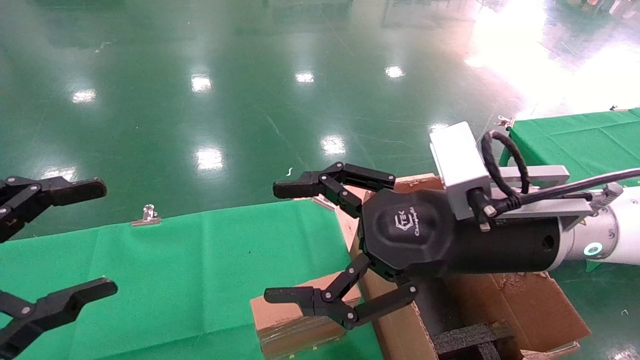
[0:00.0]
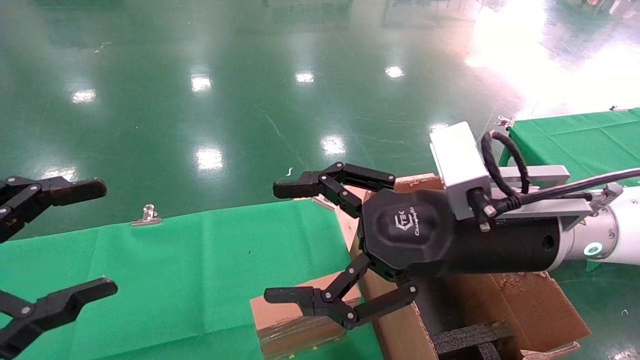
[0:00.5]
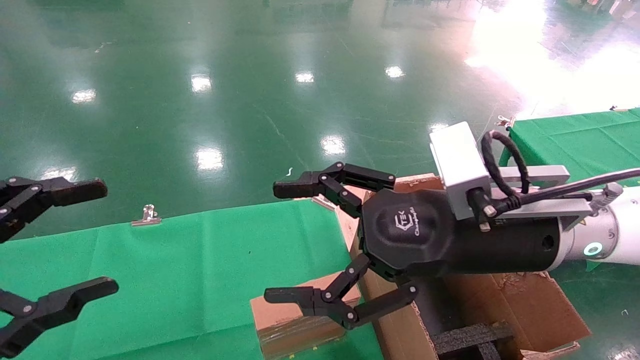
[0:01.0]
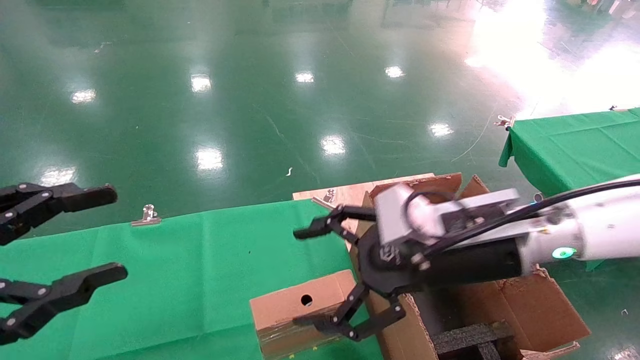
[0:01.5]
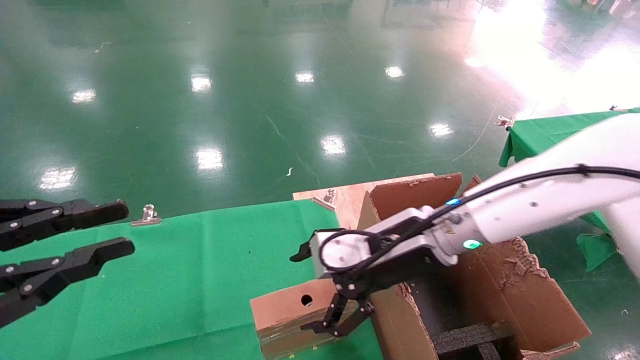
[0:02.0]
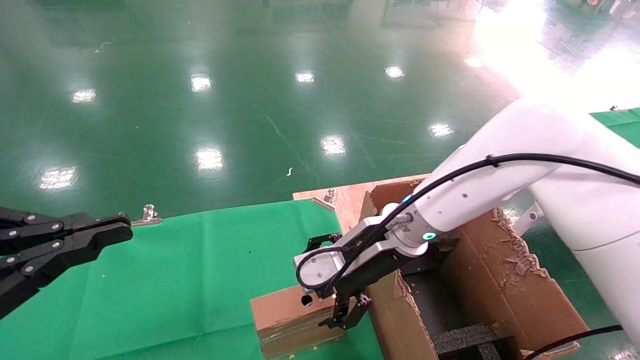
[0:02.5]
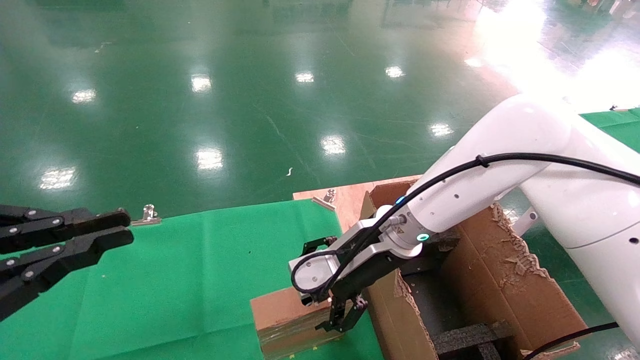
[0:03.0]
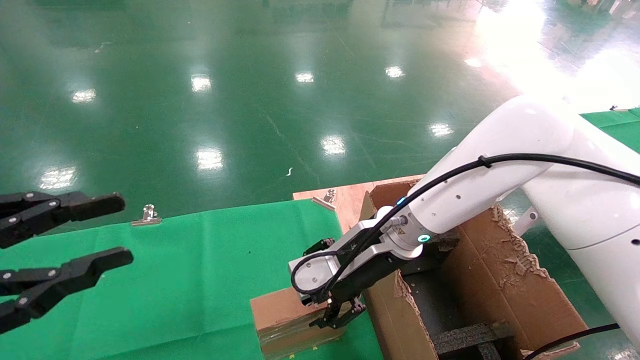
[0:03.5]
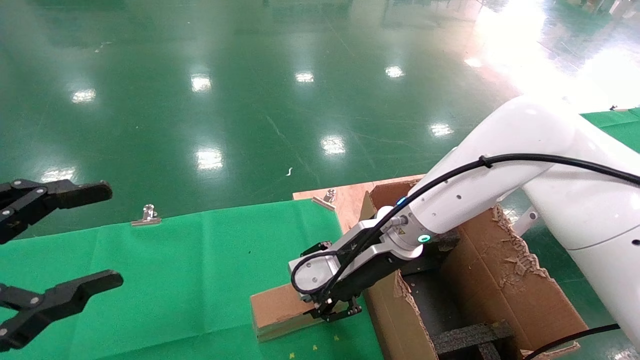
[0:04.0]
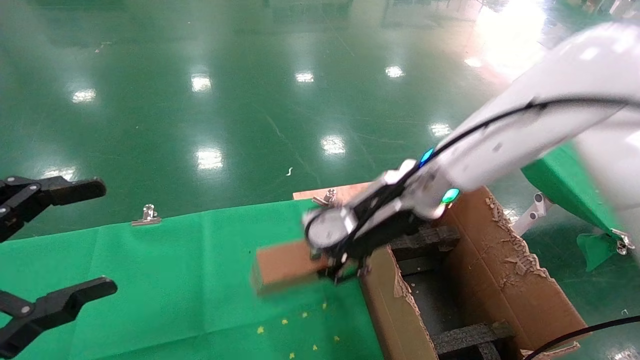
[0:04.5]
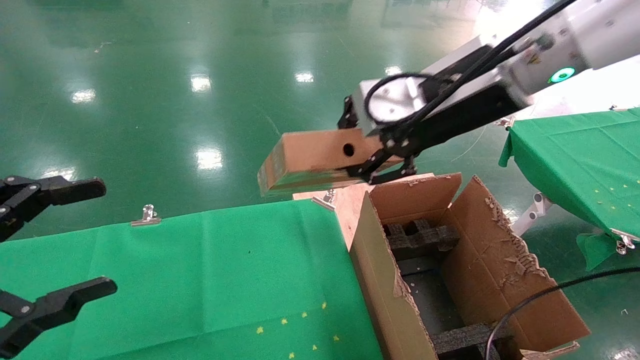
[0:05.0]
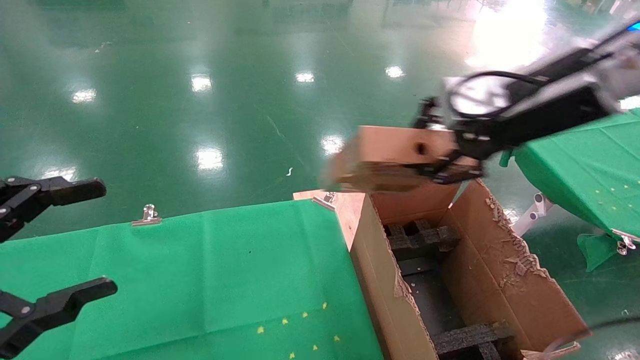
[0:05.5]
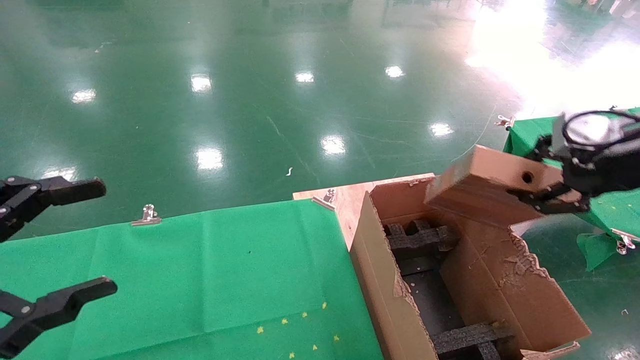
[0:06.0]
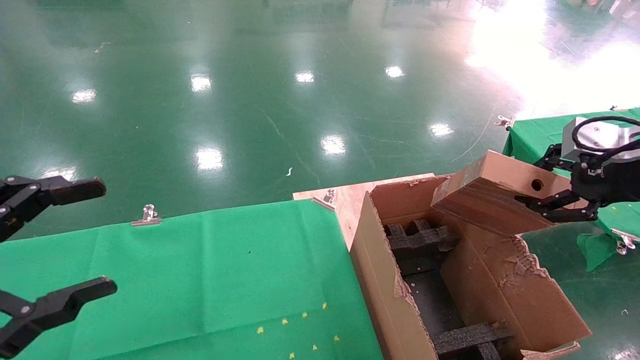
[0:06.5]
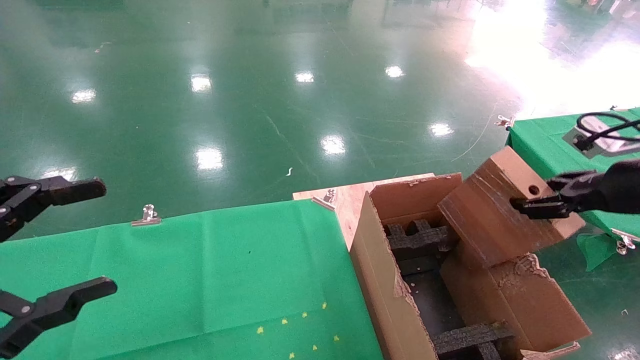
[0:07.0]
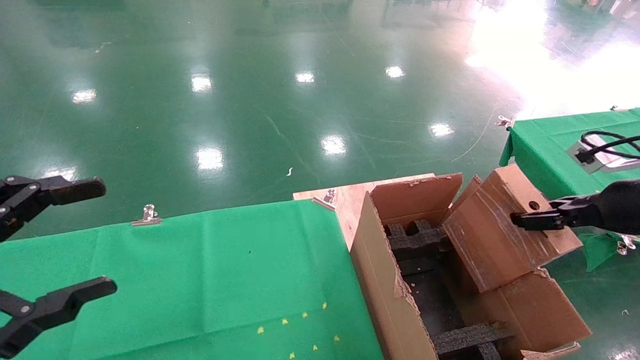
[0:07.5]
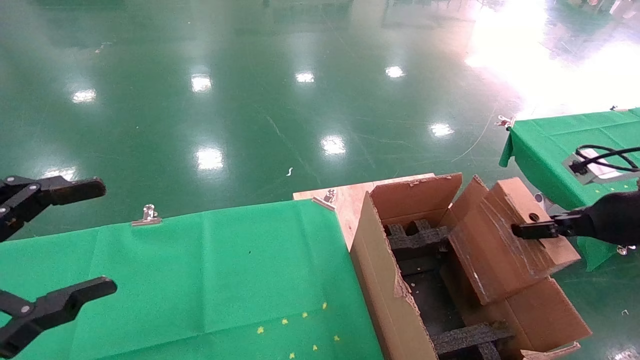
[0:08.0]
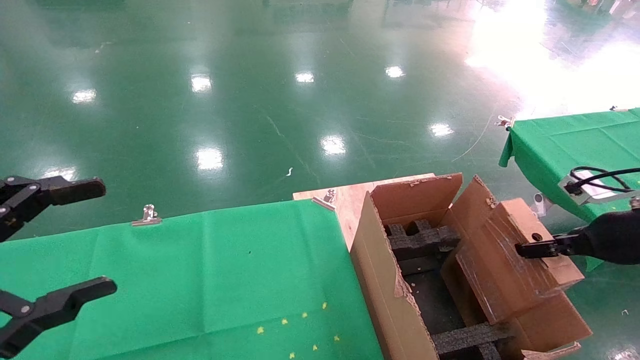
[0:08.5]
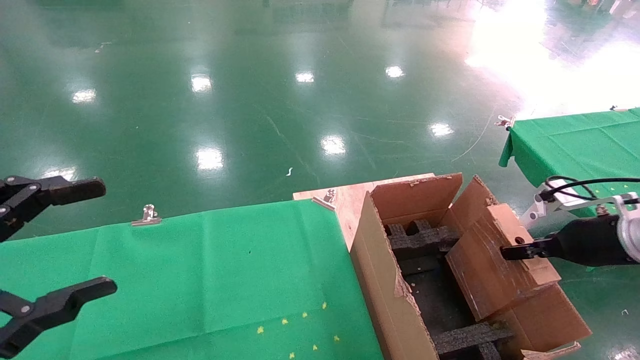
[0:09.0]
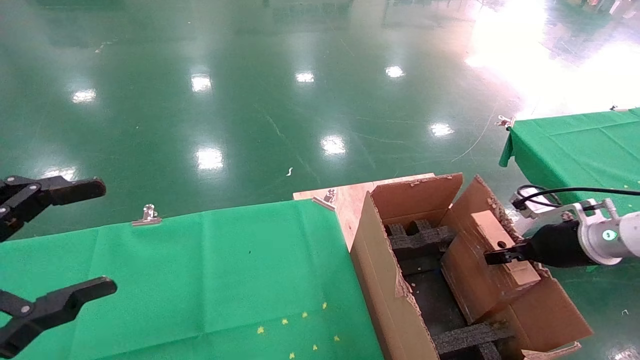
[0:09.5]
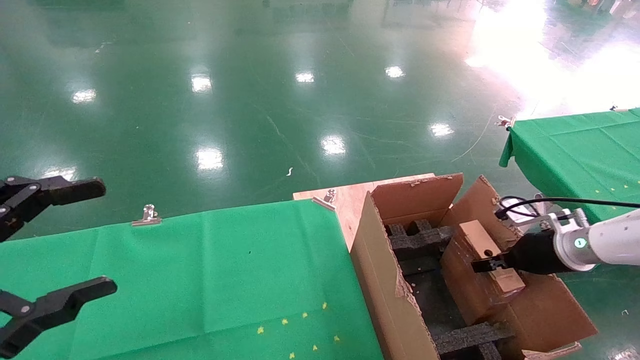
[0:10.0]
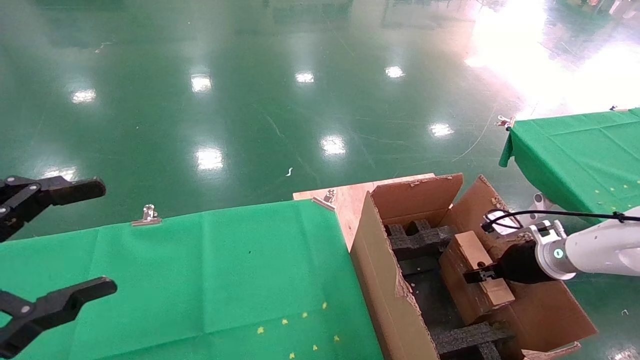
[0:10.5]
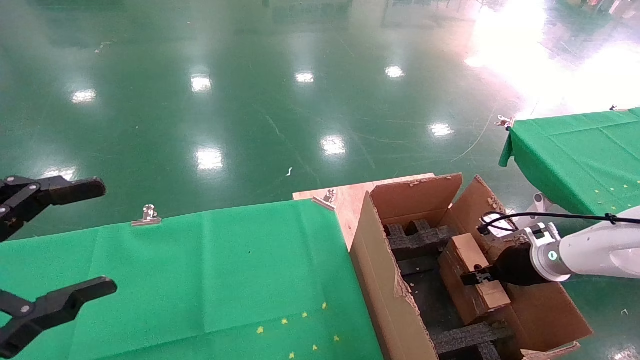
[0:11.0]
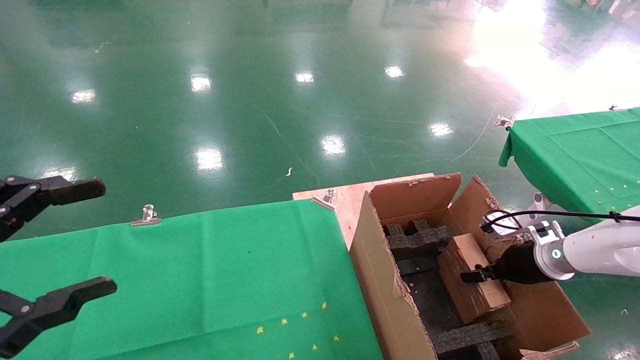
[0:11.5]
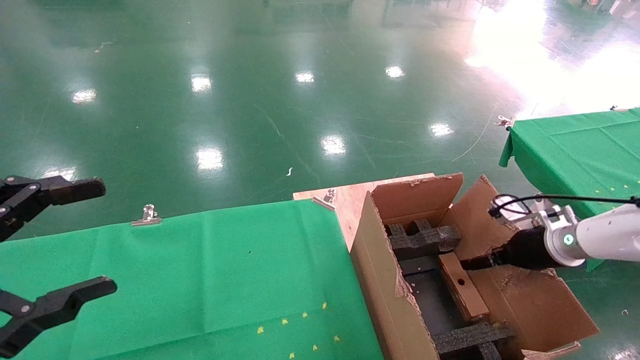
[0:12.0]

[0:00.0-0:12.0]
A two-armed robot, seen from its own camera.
Task of the whole recording: using a robotic arm to pick up a cardboard box and palace it the carton.
Step, 0:01.5 to 0:03.5: Pick up the mouse and the power cord paper box.
0:00.0 to 0:02.0: The right gripper travels forward and downward by some 10 cm; the left gripper closes its fingers.
0:02.0 to 0:04.0: The left gripper opens its fingers. Meanwhile the right gripper closes.
0:04.0 to 0:06.0: The right gripper is displaced to the right and upward by roughly 30 cm.
0:06.0 to 0:08.0: The right gripper goes roughly 15 cm downward and to the right.
0:08.0 to 0:10.0: The right gripper travels downward and forward by approximately 15 cm.
0:10.0 to 0:12.0: The right gripper opens its fingers.

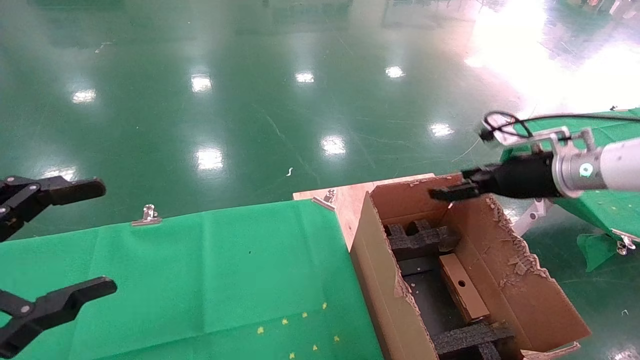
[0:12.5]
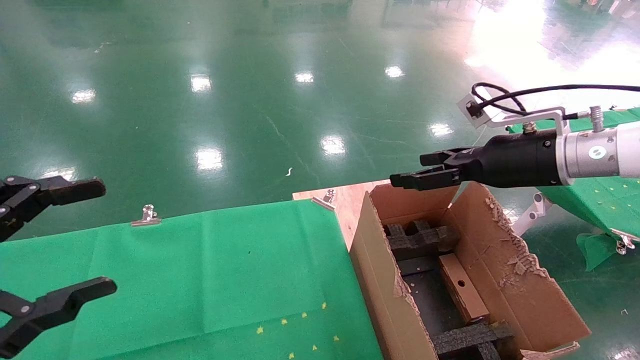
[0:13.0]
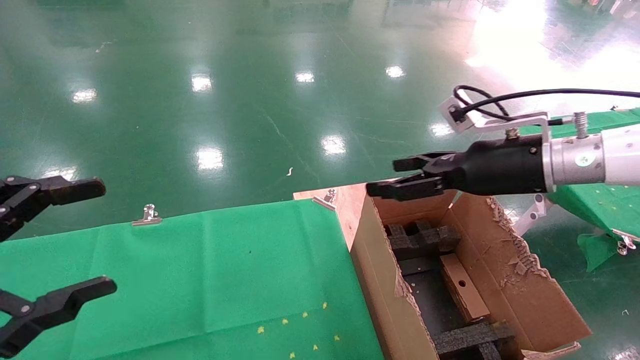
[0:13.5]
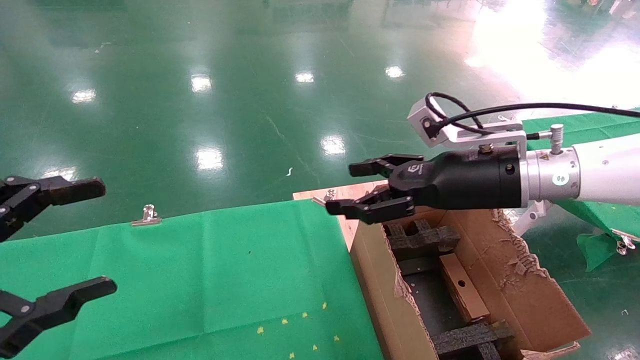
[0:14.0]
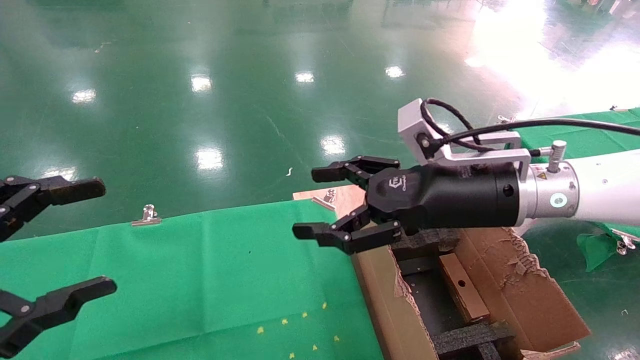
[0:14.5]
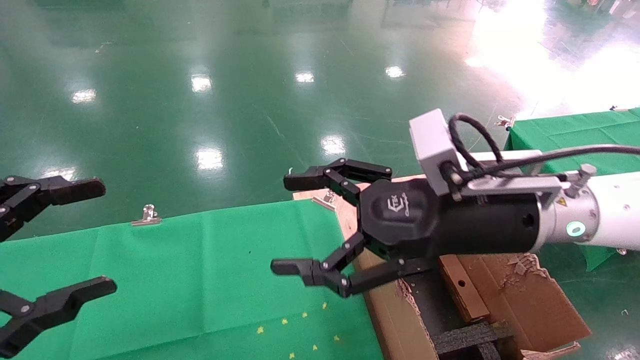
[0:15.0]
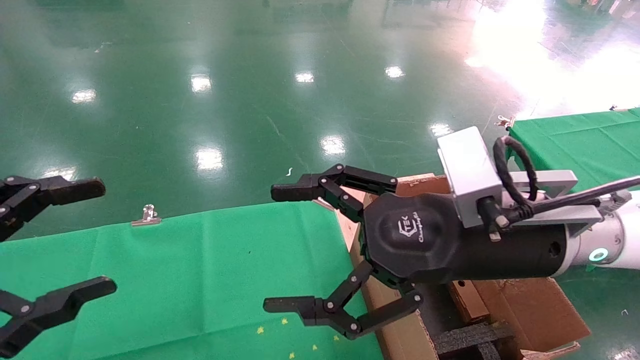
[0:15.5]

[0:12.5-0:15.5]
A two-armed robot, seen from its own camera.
Task of the whole recording: using a robotic arm to pick up a cardboard box and palace it the carton.
0:12.5 to 0:14.0: The right gripper heads to the left, covering some 15 cm.
0:14.0 to 0:15.5: The right gripper heads backward and to the left, covering some 10 cm.
